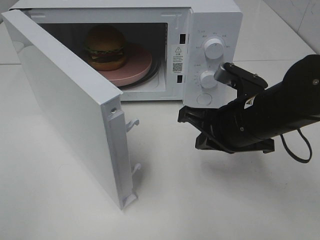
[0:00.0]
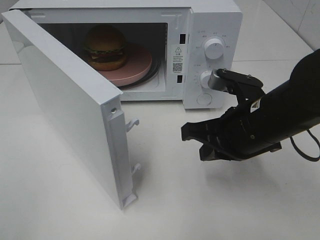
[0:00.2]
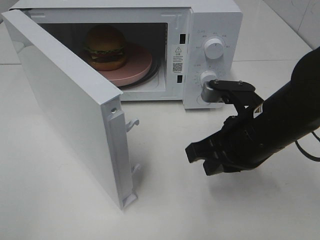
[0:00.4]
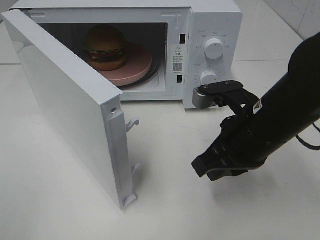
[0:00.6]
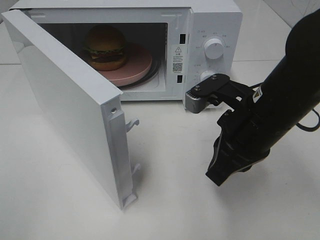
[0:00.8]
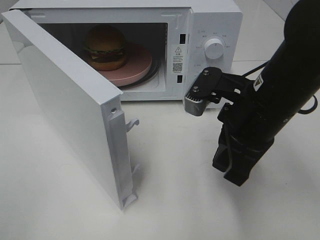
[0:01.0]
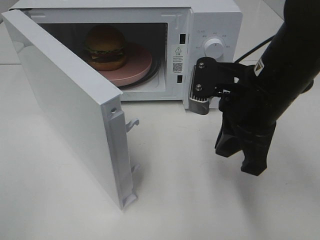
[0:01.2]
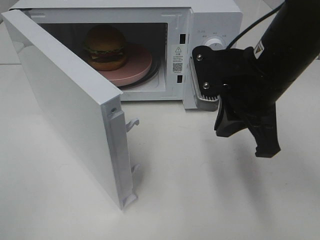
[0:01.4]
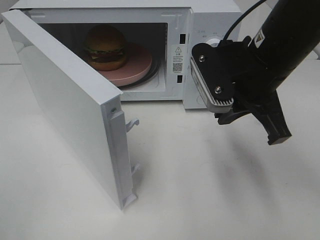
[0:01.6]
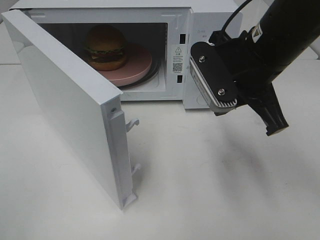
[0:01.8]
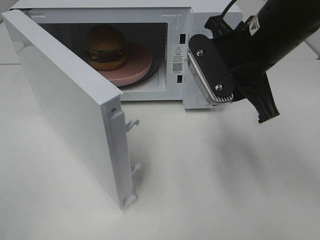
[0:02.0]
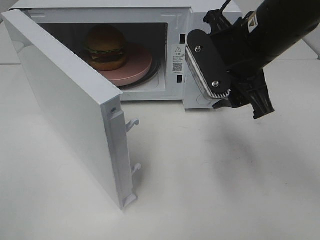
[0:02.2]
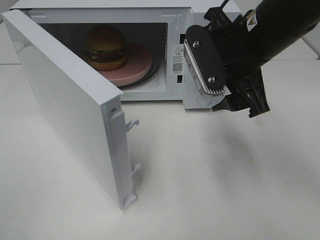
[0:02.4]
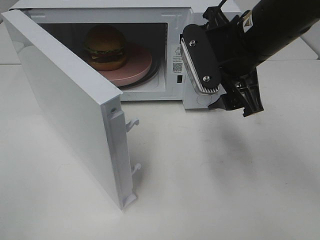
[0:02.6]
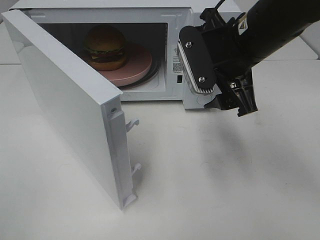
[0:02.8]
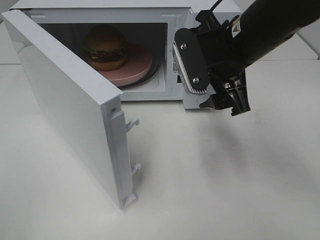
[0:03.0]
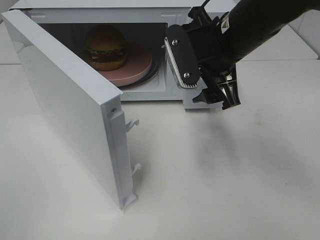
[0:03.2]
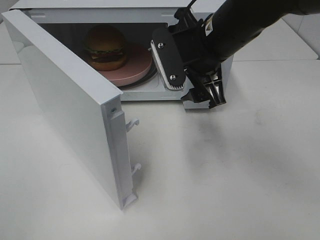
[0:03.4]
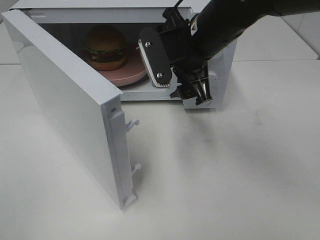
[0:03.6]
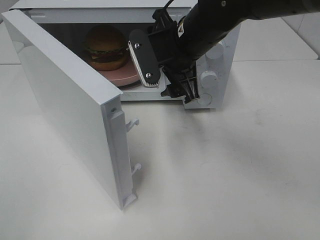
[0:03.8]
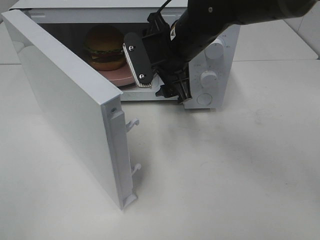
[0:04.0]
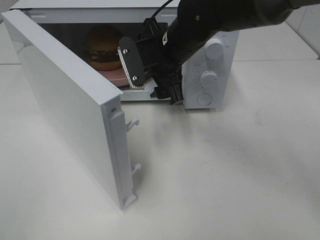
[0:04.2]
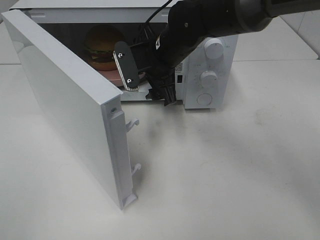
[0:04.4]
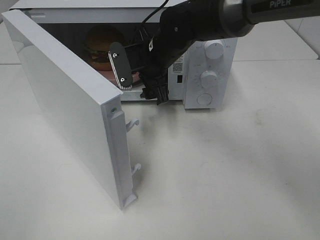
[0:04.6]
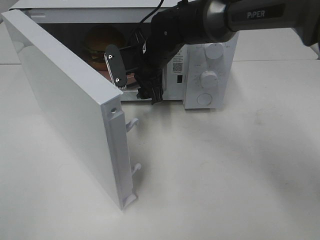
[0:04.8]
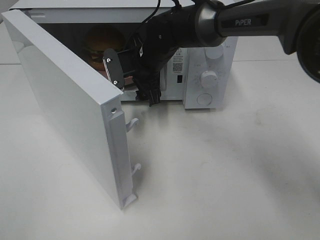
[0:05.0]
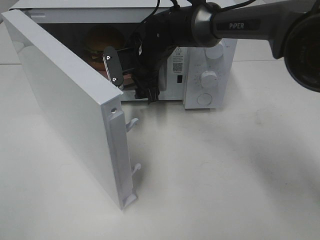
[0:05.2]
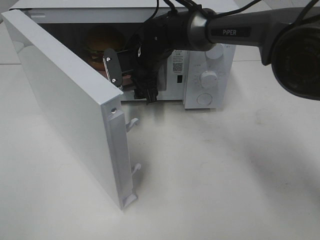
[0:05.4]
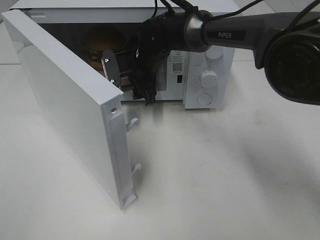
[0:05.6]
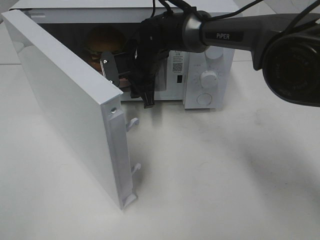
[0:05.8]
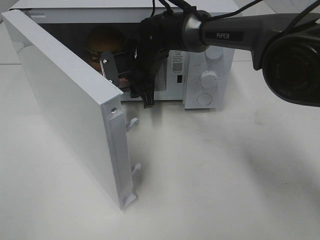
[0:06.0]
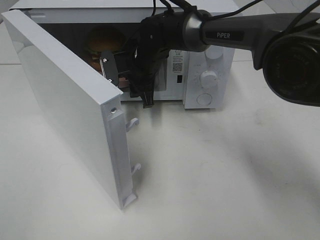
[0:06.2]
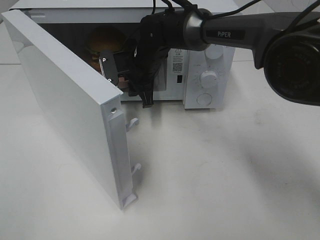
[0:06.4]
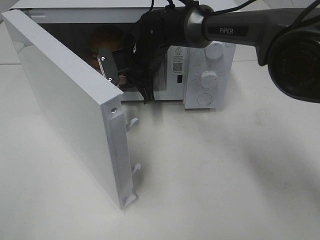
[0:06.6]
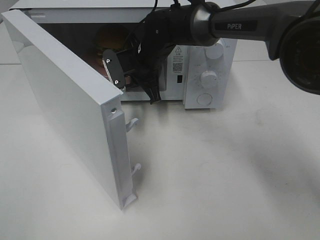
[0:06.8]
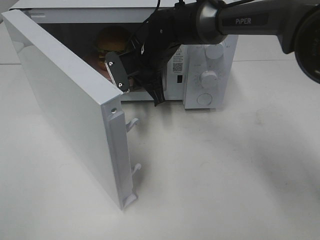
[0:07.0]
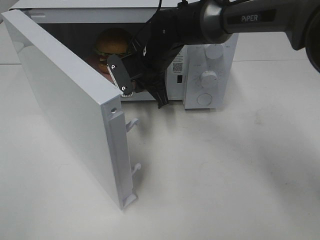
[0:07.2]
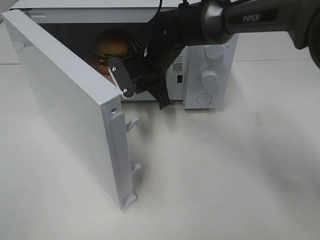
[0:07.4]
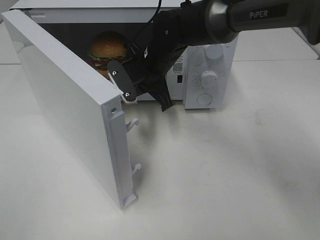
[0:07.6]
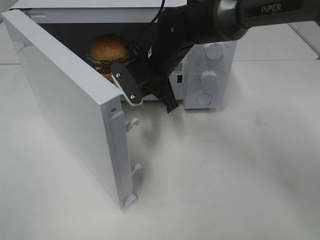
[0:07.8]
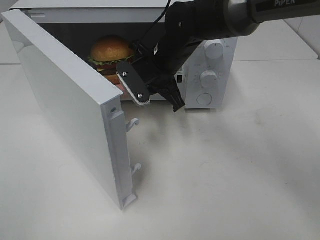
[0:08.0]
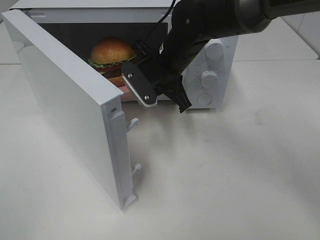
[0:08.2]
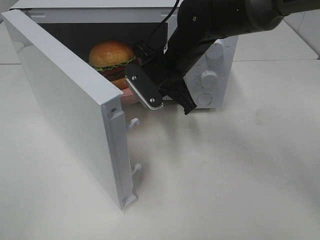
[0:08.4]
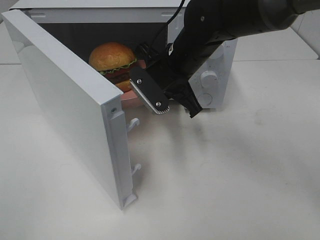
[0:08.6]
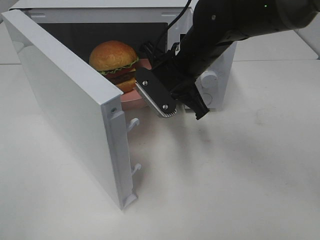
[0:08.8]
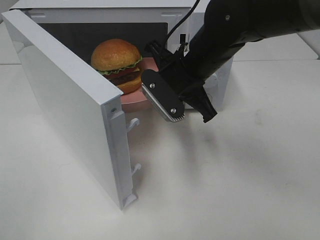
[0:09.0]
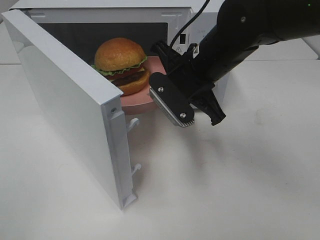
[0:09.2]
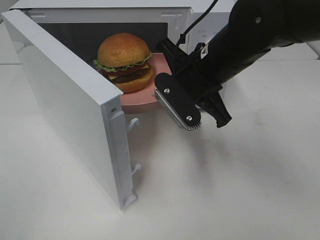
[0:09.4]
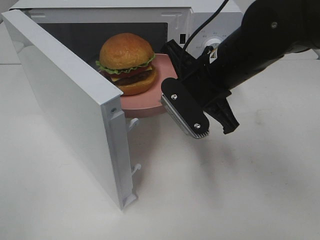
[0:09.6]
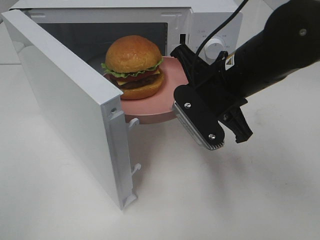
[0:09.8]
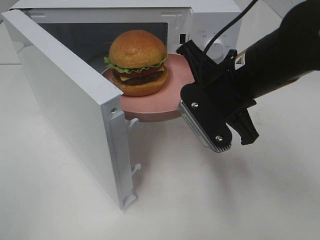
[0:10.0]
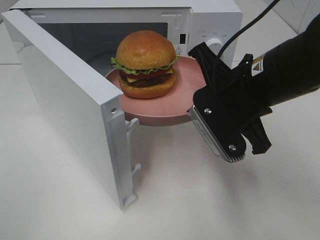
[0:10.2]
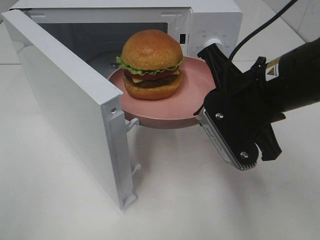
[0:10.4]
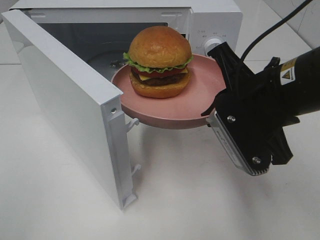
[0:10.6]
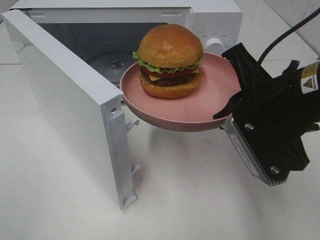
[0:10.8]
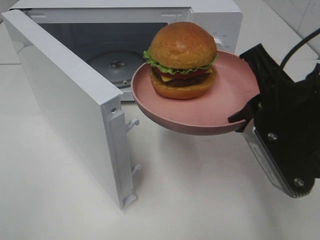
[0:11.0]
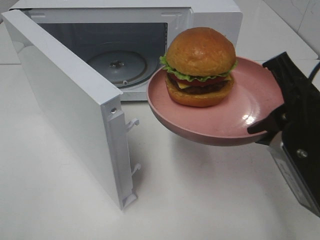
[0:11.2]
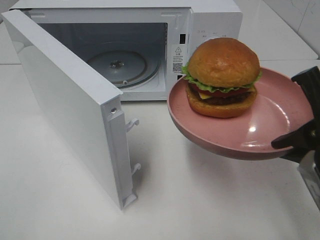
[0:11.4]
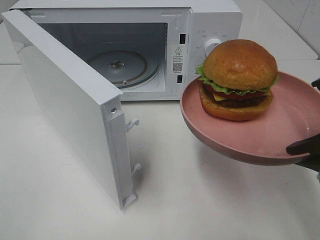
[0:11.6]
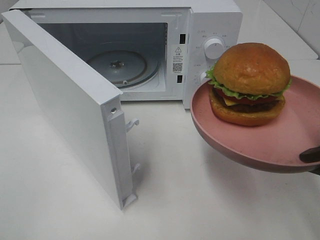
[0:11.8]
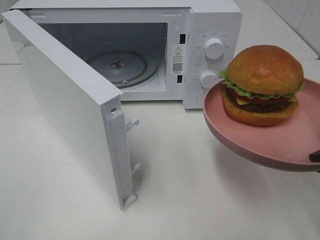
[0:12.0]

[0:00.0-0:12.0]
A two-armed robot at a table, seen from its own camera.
Task of the whole recording: Heat the burger.
Step, 0:00.0 to 0:06.8: Right hand: grab the plate with the hamburger.
0:00.0 to 0:01.6: The right gripper is displaced upward by some 10 cm.
0:01.6 to 0:03.0: The right gripper opens up.
0:03.0 to 0:04.4: The right gripper moves forward, to the left and downward, approximately 15 cm.
0:04.4 to 0:06.0: The right gripper heads forward and downward, covering roughly 10 cm, and closes its fingers.
0:06.0 to 0:07.6: The right gripper shifts by roughly 5 cm, and closes.
0:07.6 to 0:09.0: The right gripper shifts approximately 10 cm backward and to the right.
0:09.0 to 0:10.4: The right gripper moves backward and to the right, about 15 cm.
0:10.4 to 0:12.0: The right gripper is displaced backward and to the right by about 15 cm.

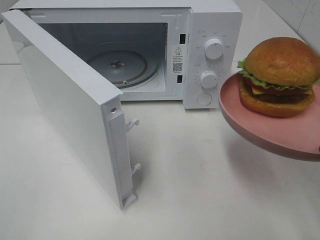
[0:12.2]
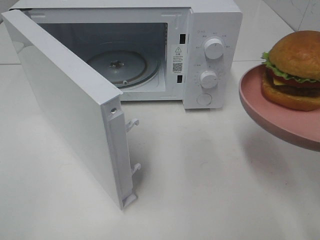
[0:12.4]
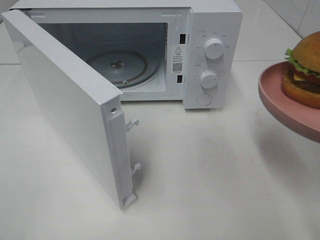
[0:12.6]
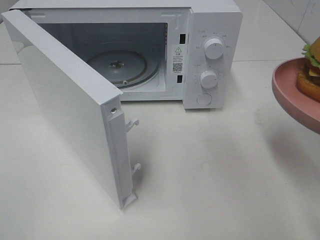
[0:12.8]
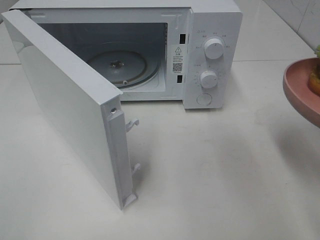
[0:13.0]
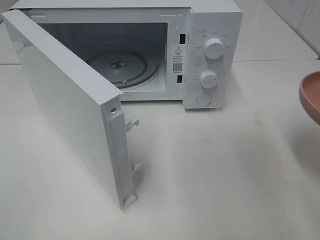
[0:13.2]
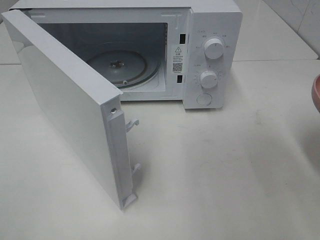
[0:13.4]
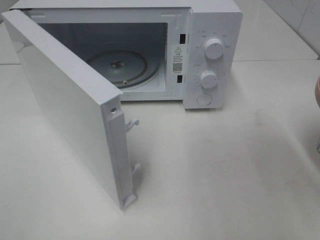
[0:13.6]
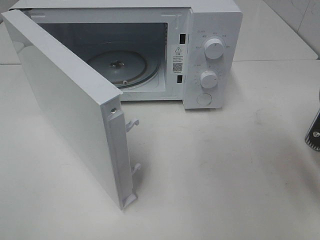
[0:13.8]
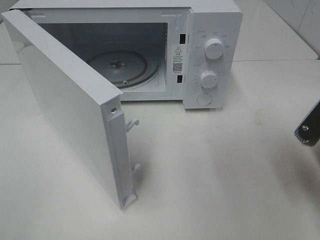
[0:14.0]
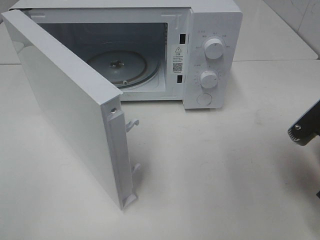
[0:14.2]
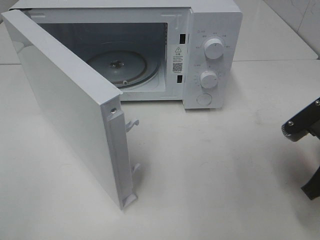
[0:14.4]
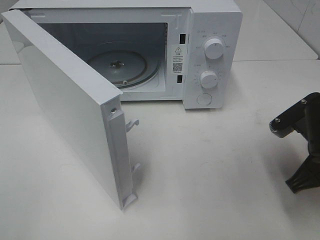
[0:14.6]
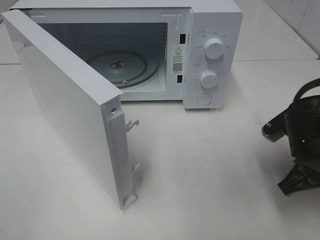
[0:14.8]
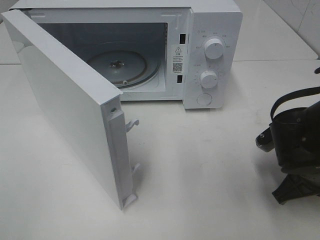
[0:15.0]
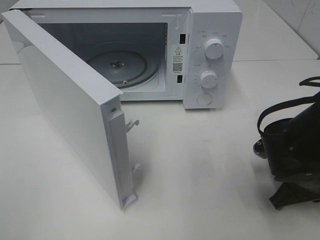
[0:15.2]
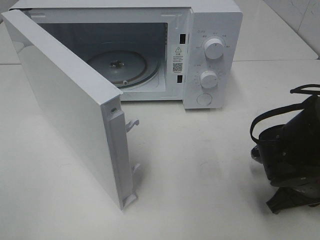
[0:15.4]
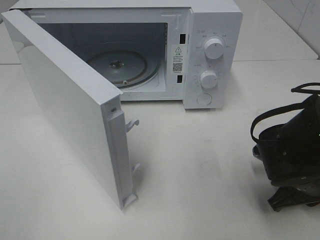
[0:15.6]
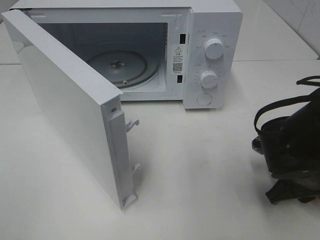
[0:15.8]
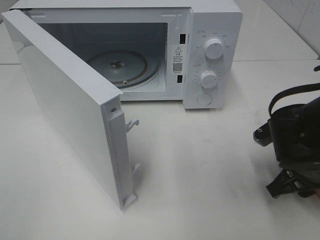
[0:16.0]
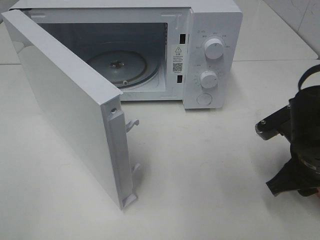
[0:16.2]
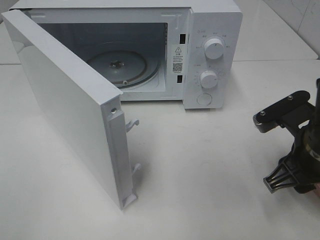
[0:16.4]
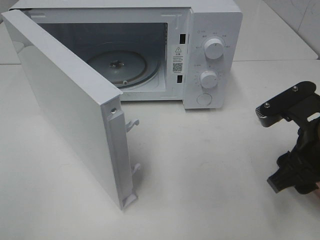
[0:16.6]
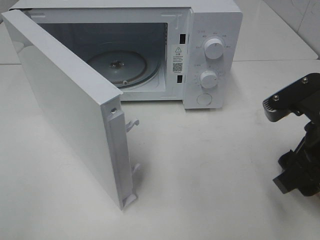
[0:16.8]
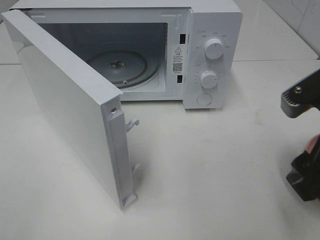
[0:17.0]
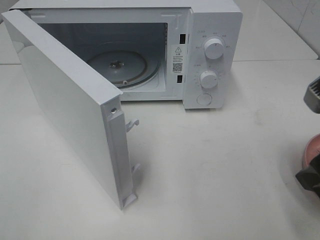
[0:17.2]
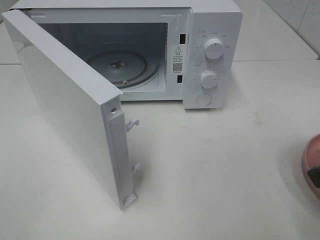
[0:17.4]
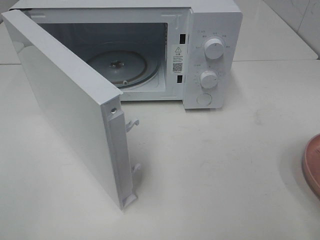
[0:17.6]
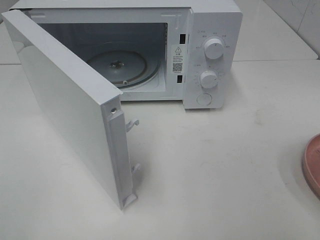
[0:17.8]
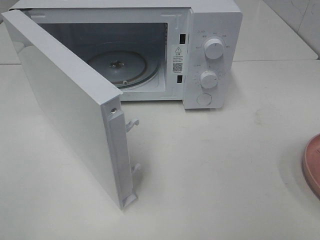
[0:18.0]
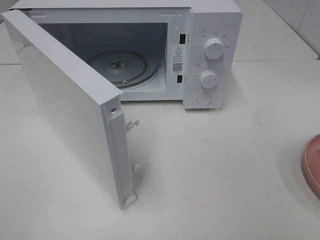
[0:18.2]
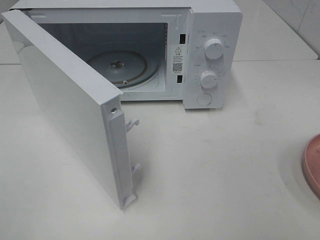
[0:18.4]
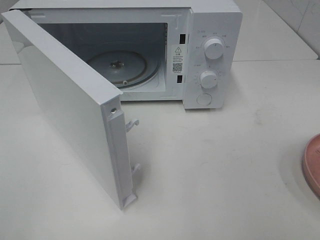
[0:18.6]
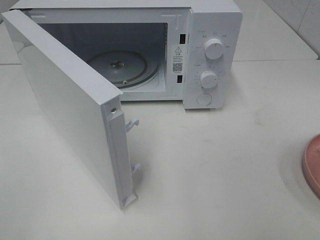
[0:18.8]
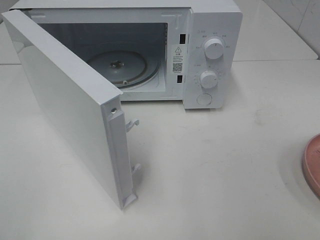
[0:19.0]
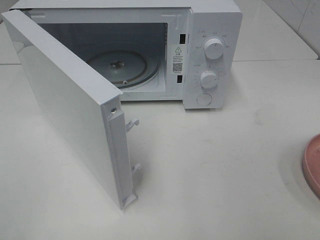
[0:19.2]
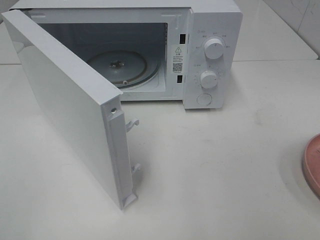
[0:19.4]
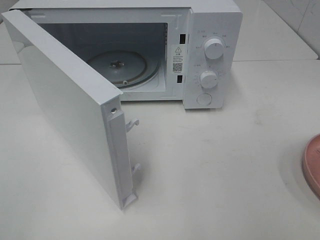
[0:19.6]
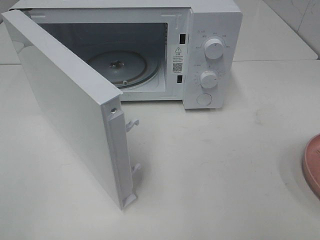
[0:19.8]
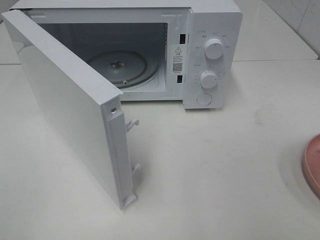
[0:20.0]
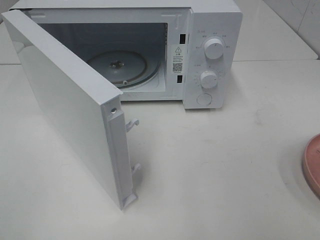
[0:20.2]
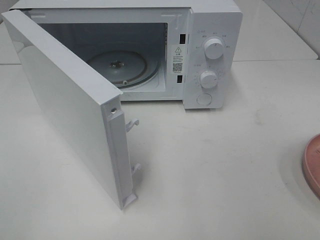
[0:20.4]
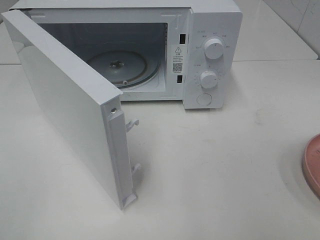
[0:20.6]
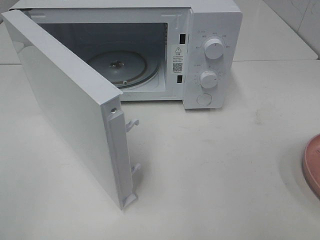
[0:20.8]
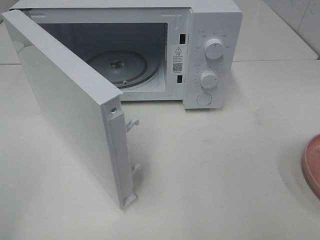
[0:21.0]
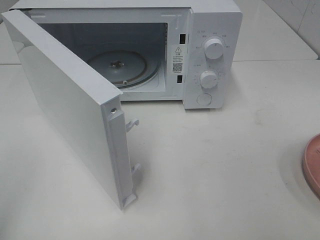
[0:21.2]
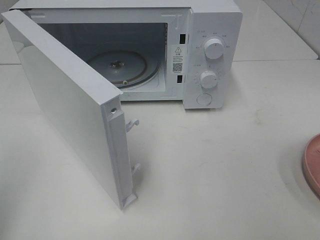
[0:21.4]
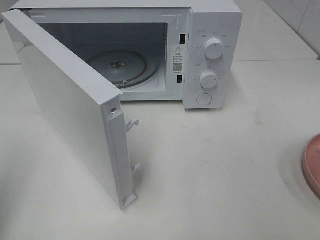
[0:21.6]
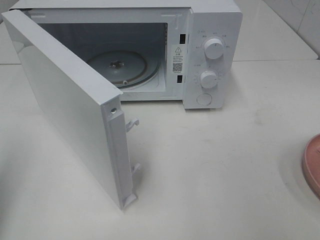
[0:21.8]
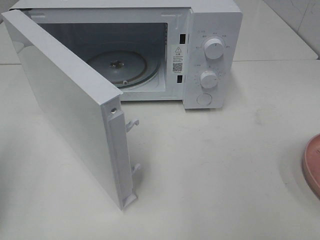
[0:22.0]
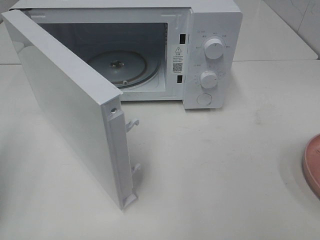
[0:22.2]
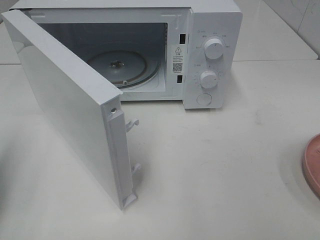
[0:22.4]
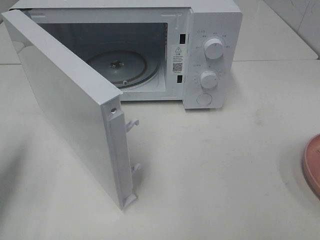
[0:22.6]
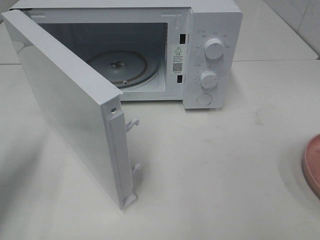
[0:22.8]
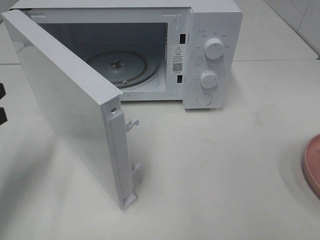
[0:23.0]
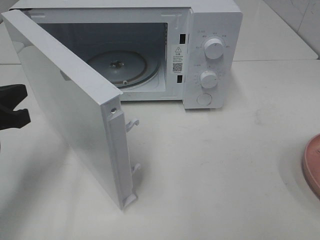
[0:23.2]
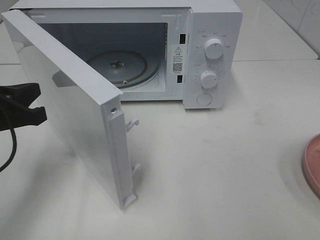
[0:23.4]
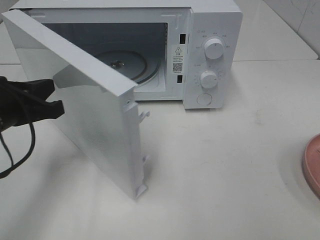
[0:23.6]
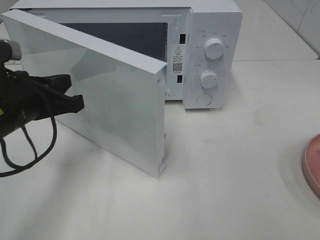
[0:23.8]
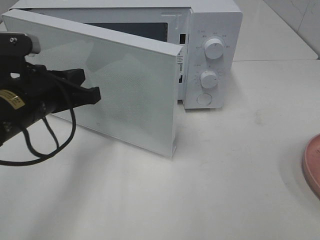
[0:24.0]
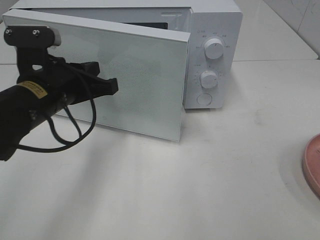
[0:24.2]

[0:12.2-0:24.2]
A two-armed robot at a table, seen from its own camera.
Task of the whole recording: Heat the burger.
Step, 0:12.2 to 0:16.4: Right hand: place the plate on the table.
0:12.2 to 0:13.8: The right gripper shifts by some 5 cm.
0:13.8 to 0:15.2: The right gripper heads downward, covering some 10 cm.
0:15.2 to 0:16.6: The right gripper shifts approximately 10 cm upward, and opens up.
0:16.6 to 0:18.2: The right gripper moves backward, upward and to the right, some 20 cm.
0:21.2 to 0:22.6: The left gripper travels forward and downward by approximately 15 cm.
0:22.6 to 0:24.2: The left gripper shifts some 20 cm to the right and forward.
